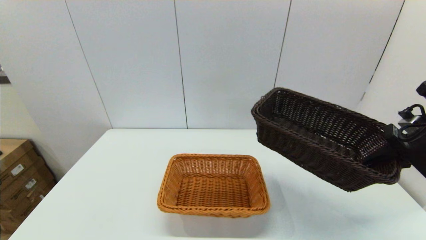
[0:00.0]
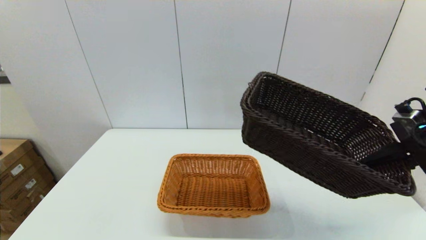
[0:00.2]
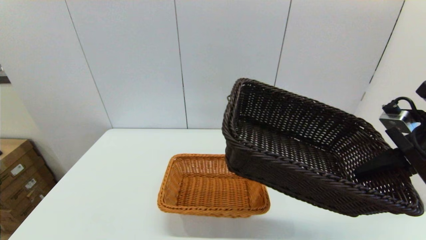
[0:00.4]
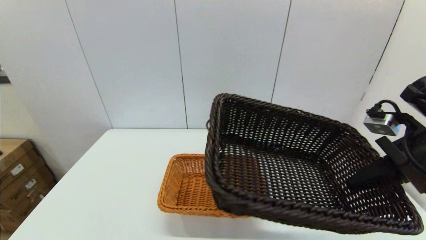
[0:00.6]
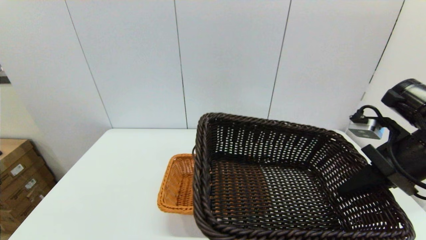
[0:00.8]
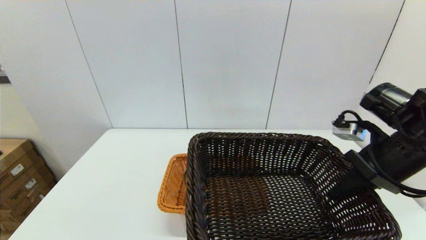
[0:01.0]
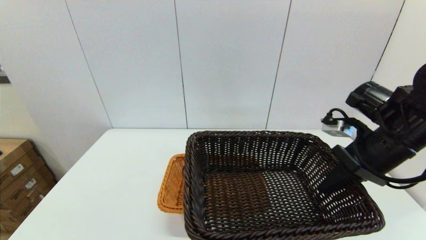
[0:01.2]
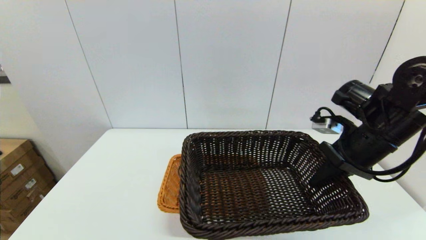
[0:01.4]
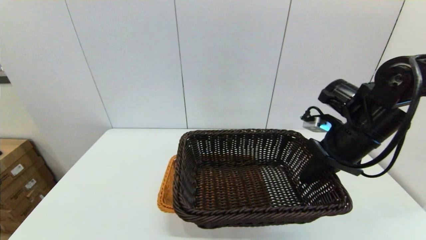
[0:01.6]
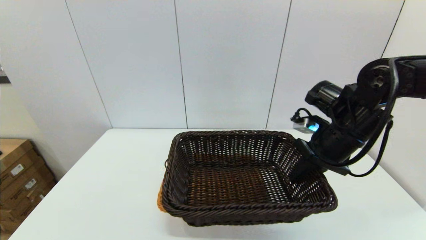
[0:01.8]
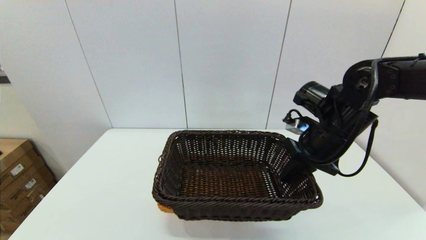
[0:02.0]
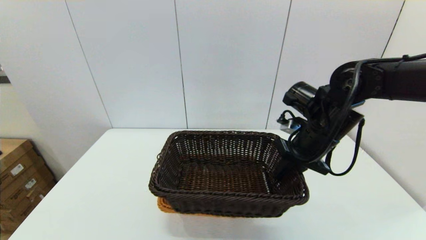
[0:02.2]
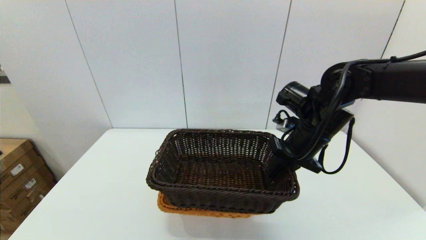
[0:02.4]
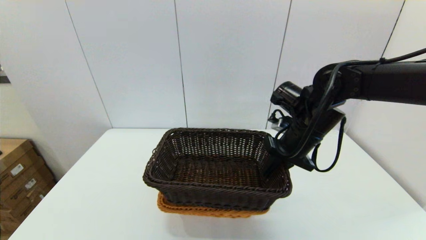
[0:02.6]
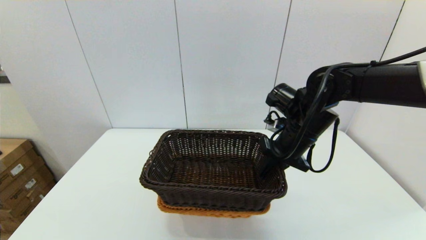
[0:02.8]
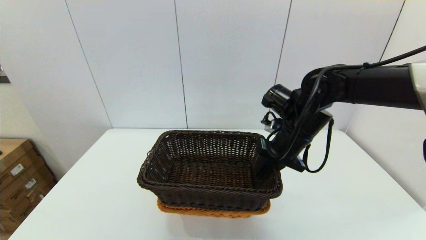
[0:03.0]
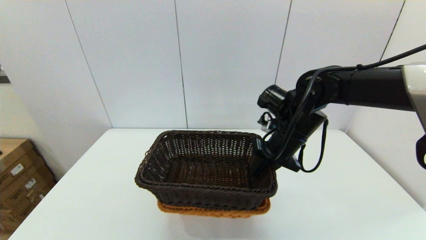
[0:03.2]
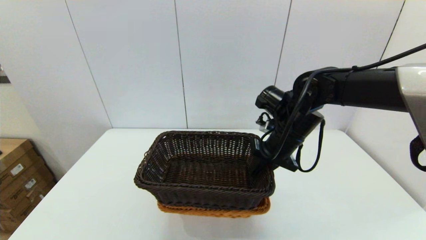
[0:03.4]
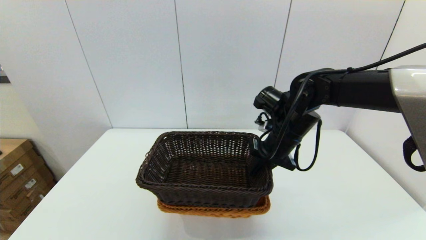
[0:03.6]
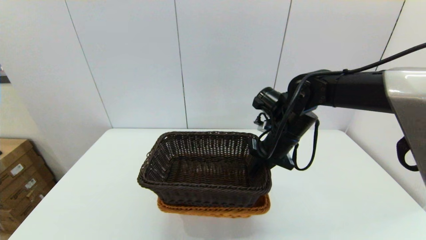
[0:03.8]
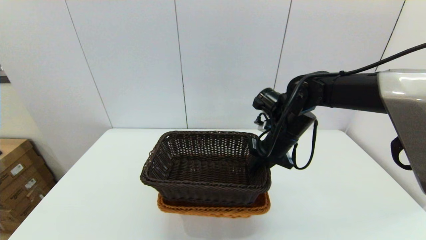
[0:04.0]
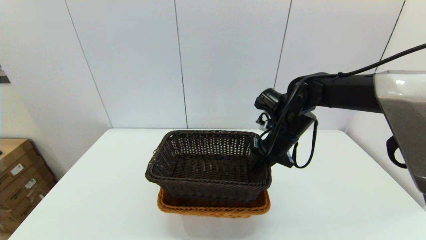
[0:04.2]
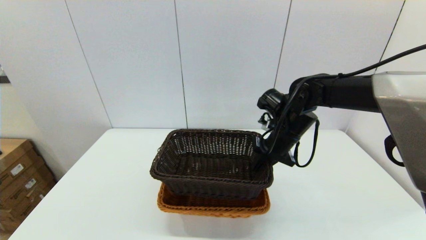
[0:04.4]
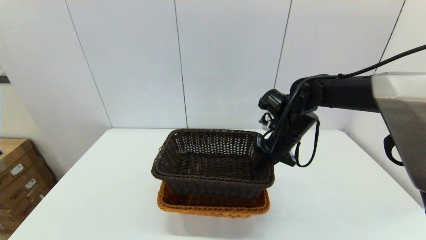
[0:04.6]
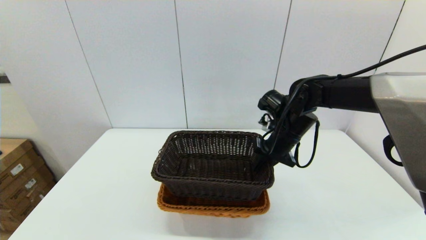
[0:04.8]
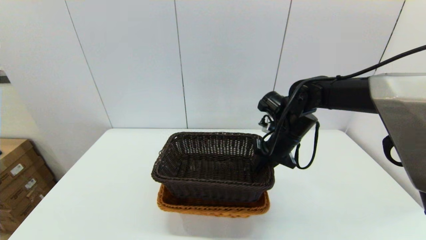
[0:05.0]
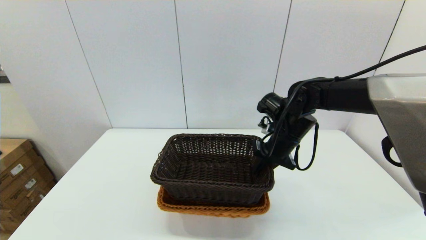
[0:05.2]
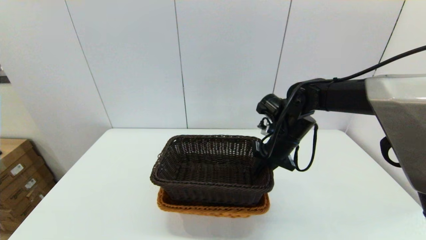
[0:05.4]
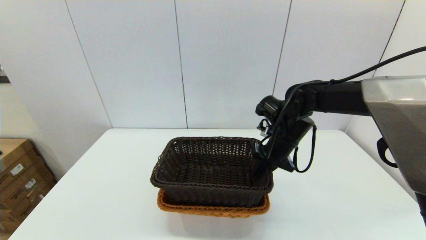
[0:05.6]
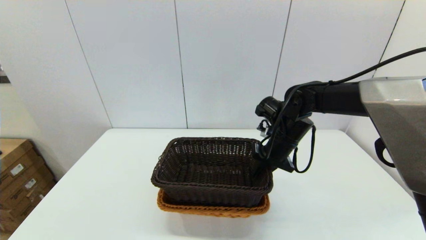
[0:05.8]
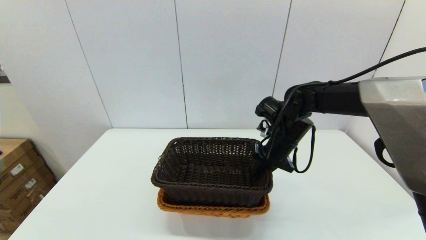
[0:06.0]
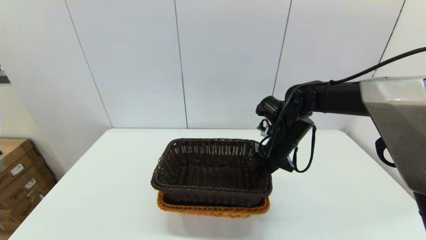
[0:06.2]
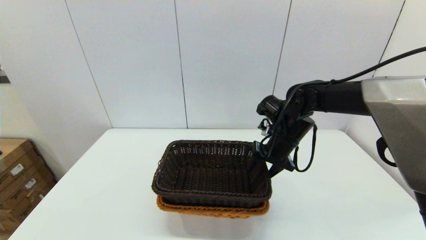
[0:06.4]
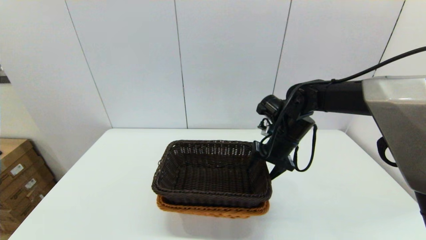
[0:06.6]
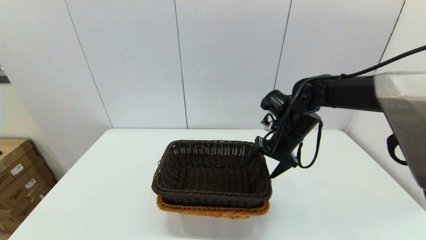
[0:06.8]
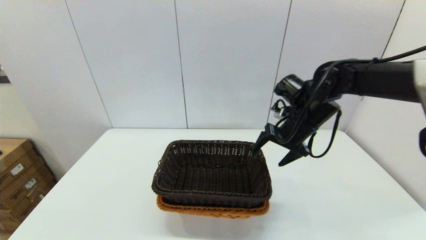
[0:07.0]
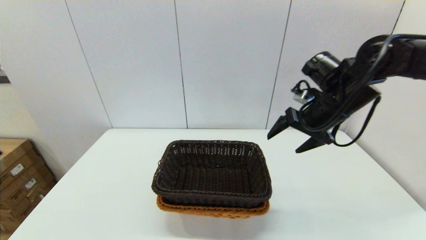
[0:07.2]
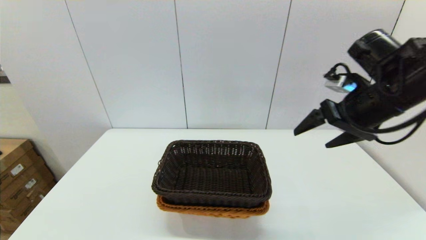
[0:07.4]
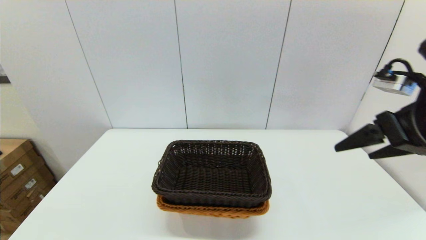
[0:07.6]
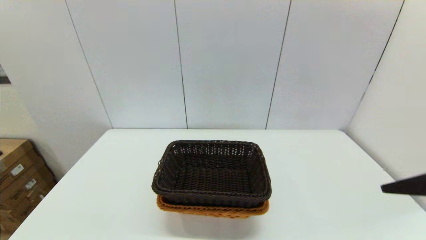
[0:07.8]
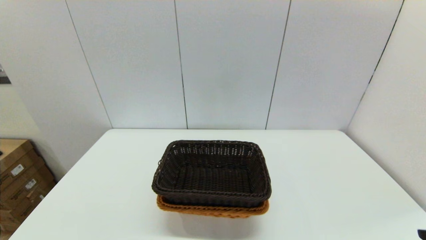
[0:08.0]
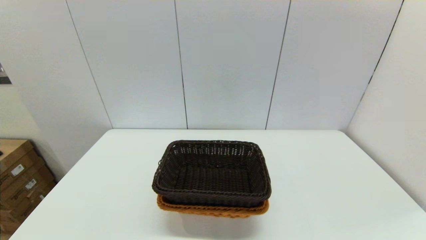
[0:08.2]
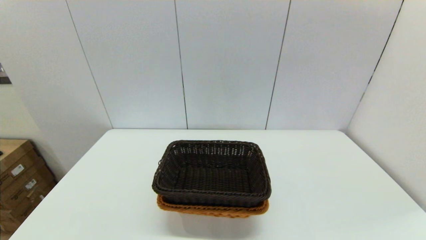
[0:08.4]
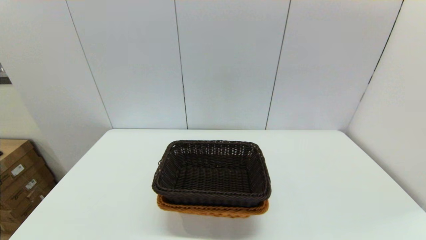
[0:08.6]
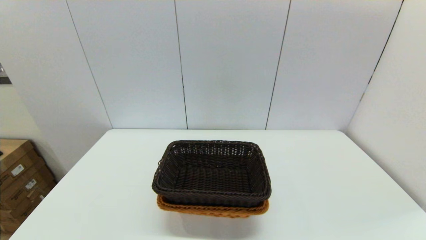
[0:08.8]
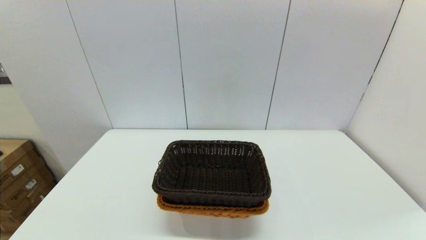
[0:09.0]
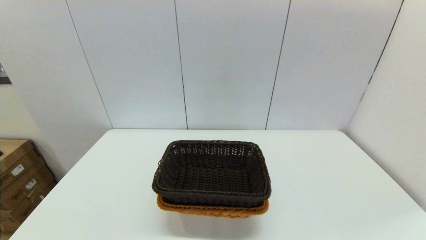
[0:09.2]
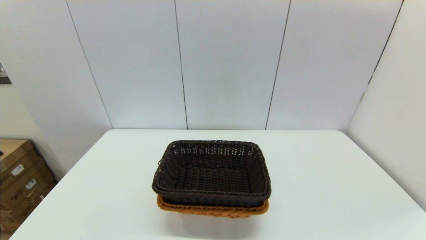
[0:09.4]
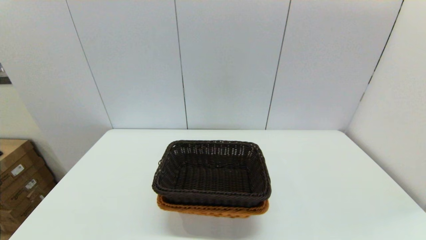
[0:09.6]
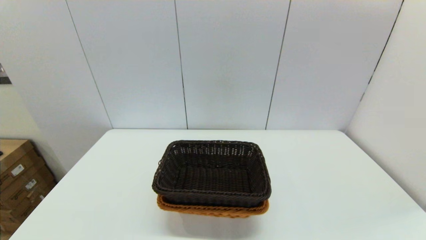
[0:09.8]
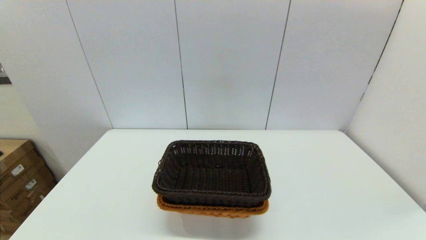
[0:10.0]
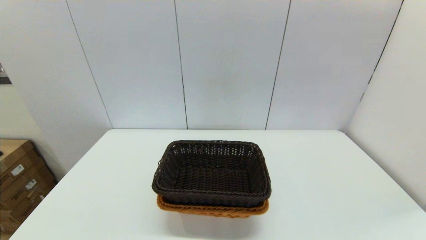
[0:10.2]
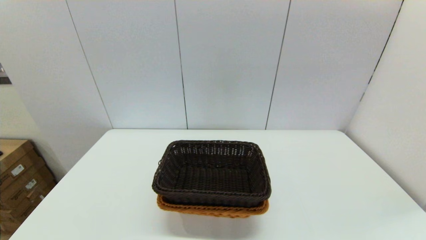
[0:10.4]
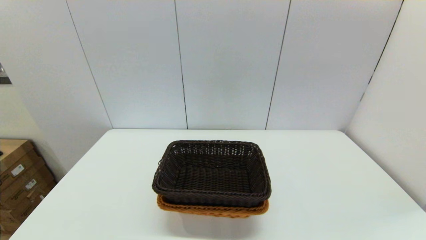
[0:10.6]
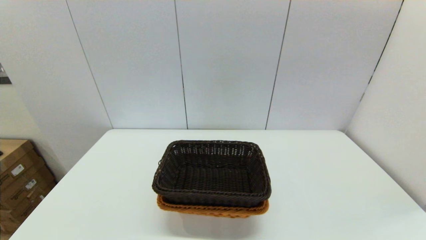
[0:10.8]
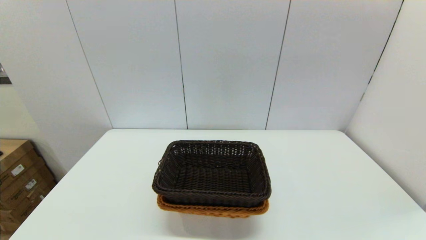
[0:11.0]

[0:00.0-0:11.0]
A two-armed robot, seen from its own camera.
Task of the whole recording: stack a basket on top of another basket.
Step, 0:00.0 to 0:07.2: Place the dark basket into the light color basket with the right gripper.
0:00.0 to 0:01.6: The right gripper heads to the left, covering roughly 15 cm.
0:01.6 to 0:03.2: The right gripper shifts some 10 cm to the left.
0:03.2 to 0:06.2: There are only small adjustments of the grippers.
0:06.2 to 0:07.8: The right gripper moves backward, to the right and upward, about 30 cm, and opens up.
0:07.8 to 0:09.4: The right gripper shifts some 25 cm downward and backward.
